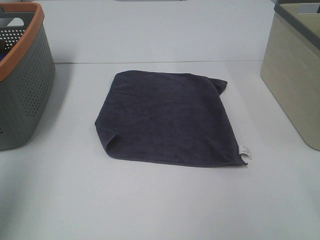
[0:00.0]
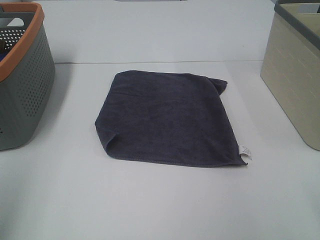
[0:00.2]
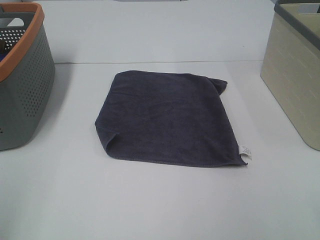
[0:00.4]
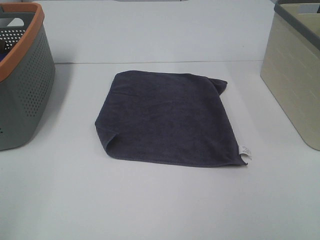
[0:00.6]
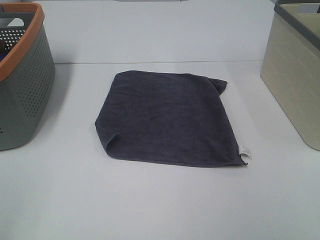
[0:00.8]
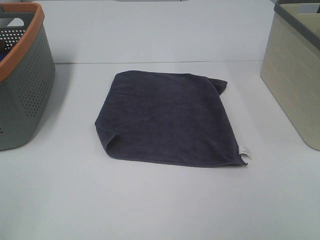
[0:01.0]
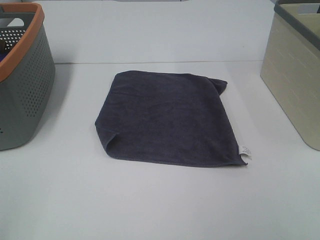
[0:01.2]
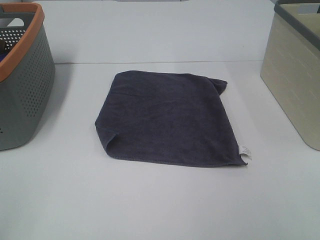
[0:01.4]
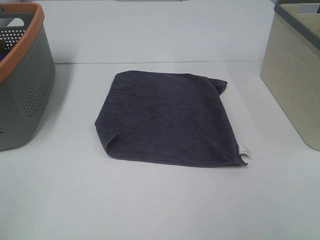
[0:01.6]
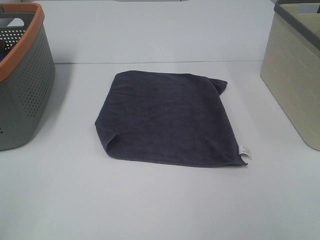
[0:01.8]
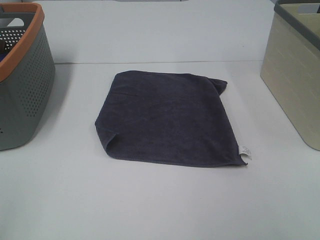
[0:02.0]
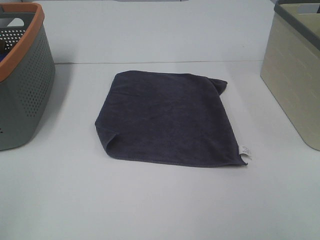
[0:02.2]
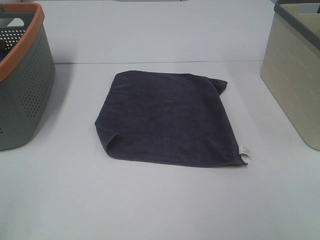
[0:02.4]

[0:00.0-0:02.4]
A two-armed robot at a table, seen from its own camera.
Task of the whole recording: Remove the towel and place it.
0:00.0 to 0:01.2: The left gripper goes some 20 cm backward and downward.
0:01.2 to 0:02.4: The two grippers keep their place.

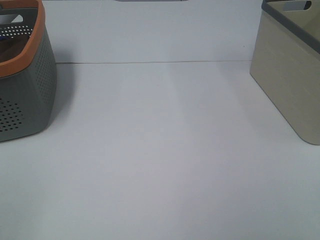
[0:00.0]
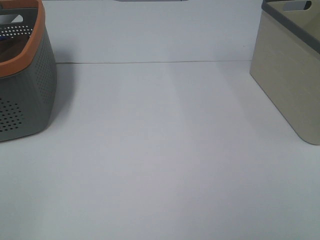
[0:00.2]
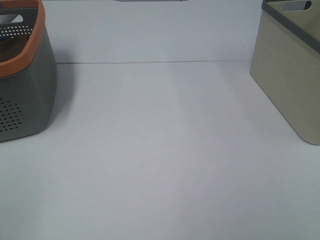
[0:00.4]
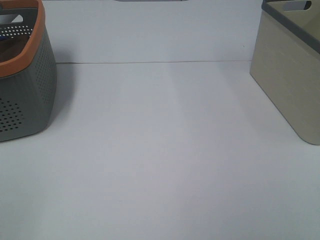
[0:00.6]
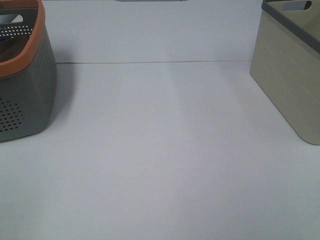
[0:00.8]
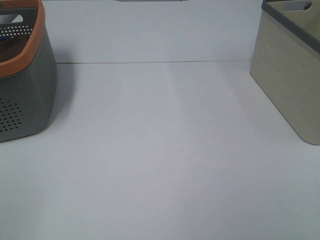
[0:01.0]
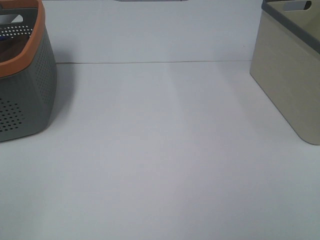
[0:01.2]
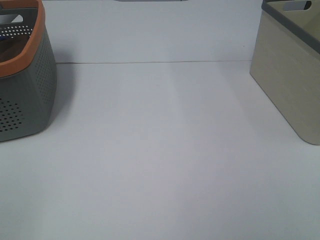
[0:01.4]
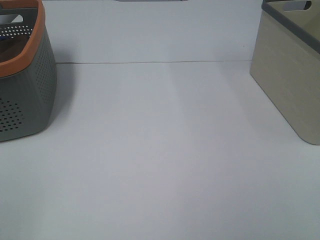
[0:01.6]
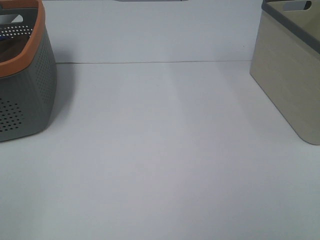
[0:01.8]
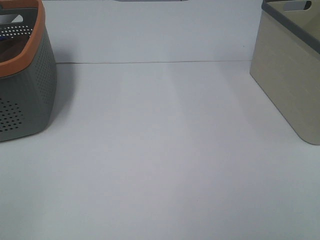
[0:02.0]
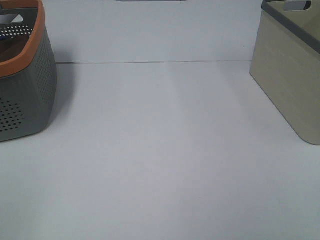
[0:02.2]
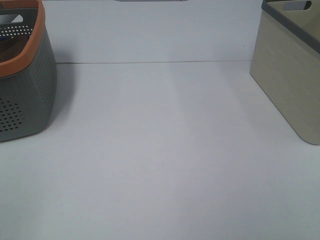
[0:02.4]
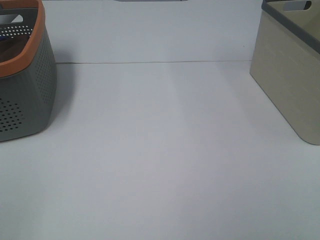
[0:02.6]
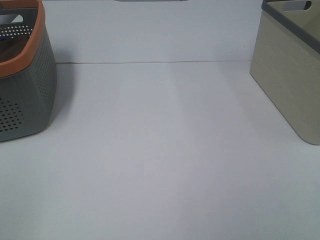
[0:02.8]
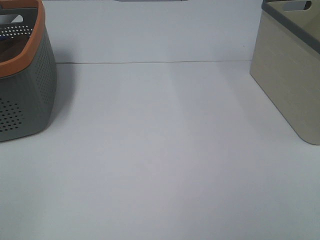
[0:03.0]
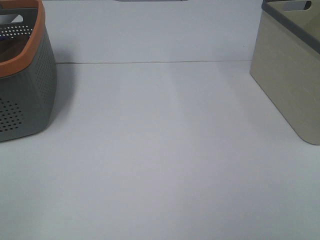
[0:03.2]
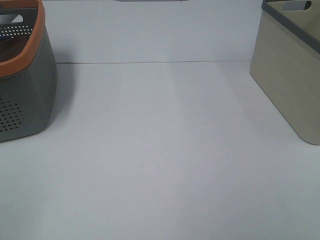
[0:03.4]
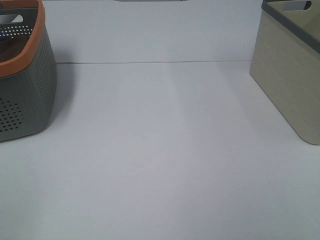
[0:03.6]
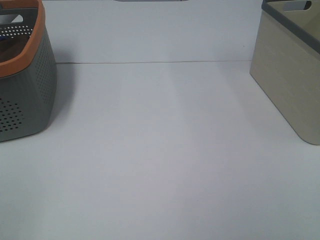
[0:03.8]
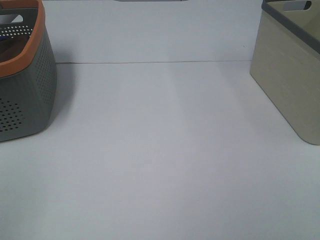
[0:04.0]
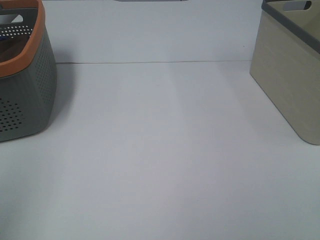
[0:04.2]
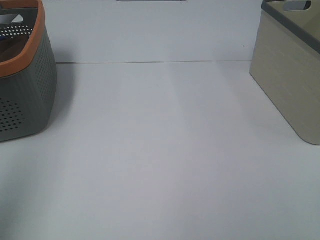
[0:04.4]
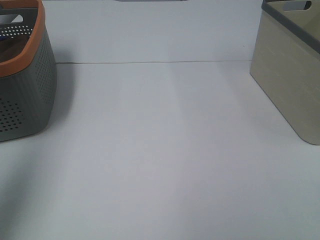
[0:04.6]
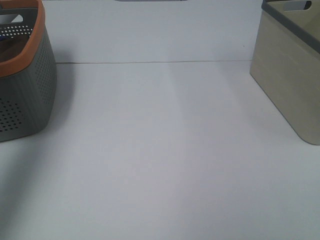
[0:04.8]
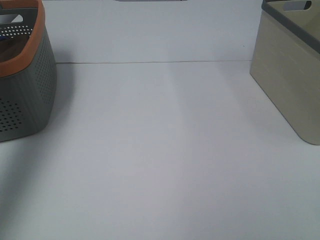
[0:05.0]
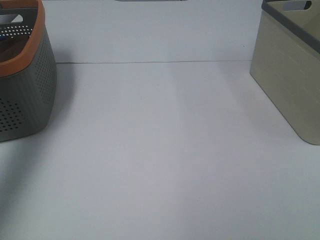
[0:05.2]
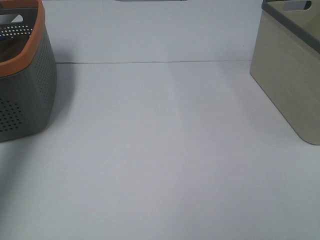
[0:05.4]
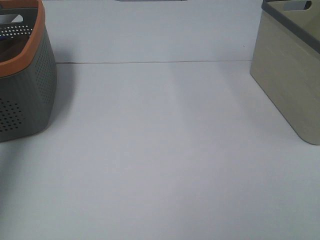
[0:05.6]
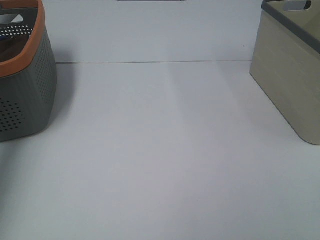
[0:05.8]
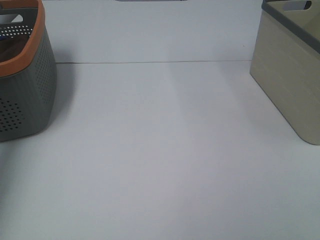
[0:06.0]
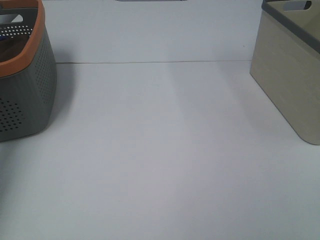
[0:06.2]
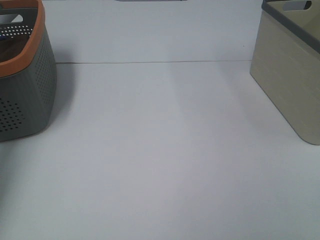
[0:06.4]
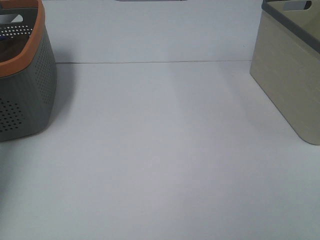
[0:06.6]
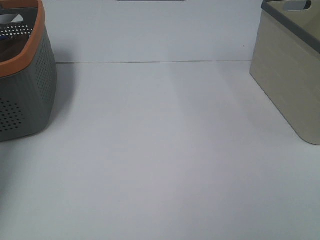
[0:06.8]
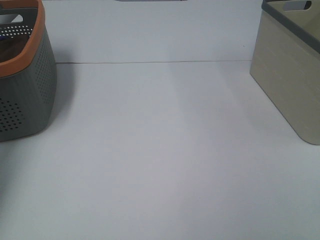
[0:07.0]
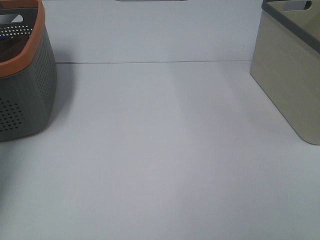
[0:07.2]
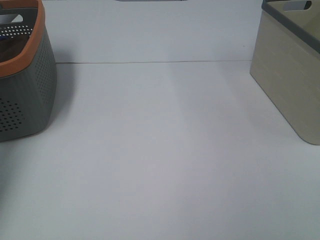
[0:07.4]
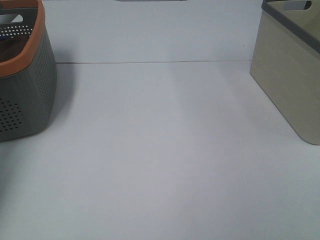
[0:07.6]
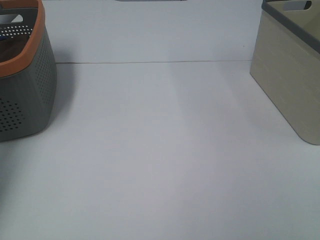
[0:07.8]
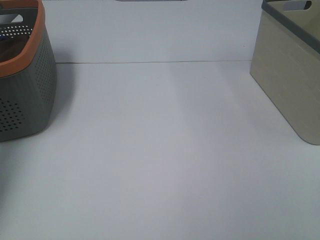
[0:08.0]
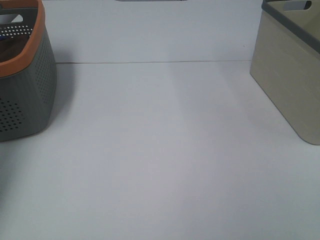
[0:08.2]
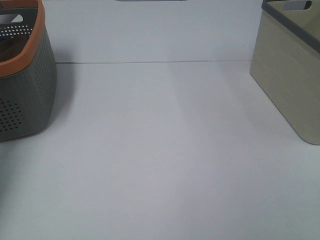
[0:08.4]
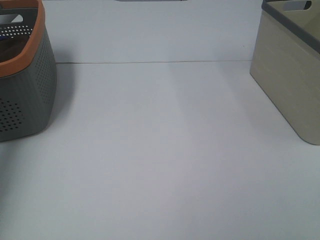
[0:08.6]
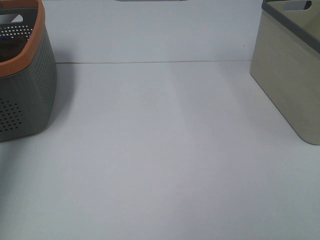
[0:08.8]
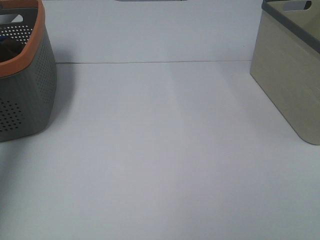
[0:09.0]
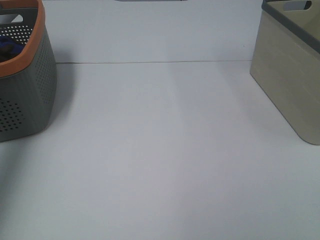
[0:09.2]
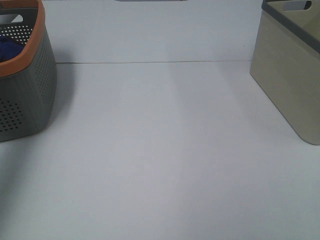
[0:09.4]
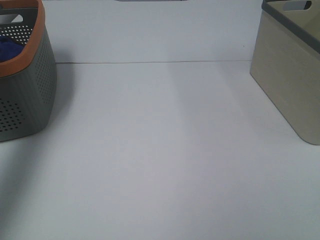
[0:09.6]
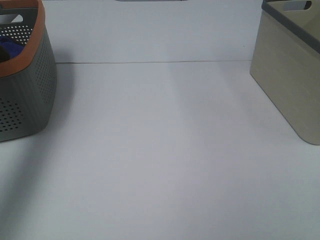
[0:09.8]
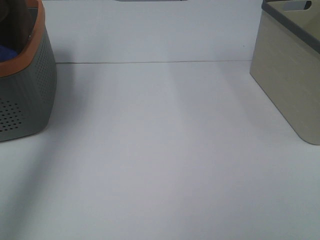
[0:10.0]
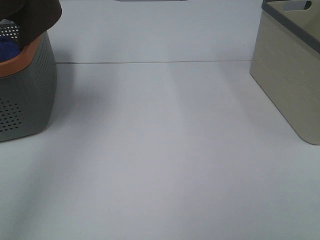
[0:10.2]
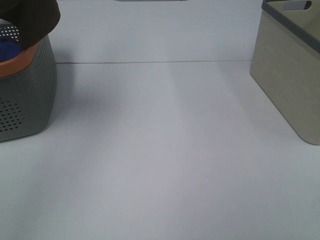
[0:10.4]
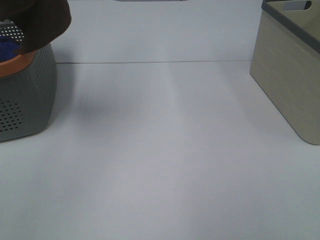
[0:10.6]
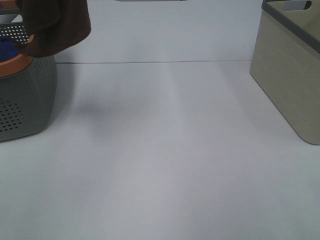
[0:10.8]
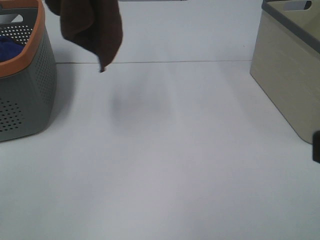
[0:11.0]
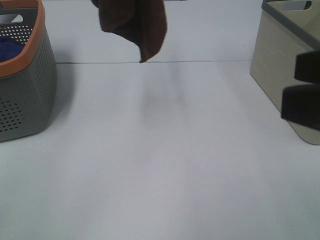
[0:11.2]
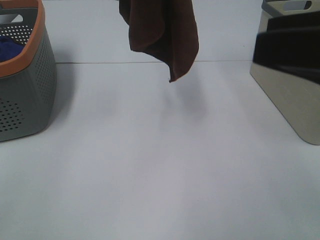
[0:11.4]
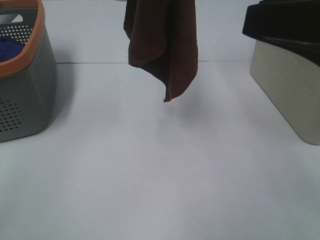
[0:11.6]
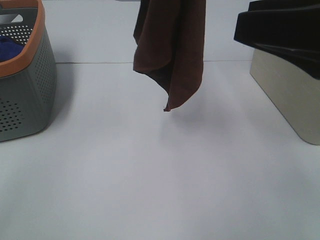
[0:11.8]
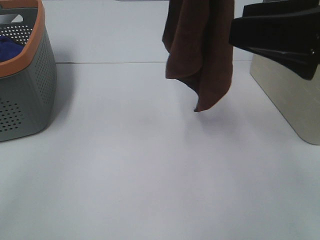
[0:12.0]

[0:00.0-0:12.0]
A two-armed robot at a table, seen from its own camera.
Task of the whole recording: Remove the towel and place it.
0:00.0 to 0:03.0: Both grippers stay about where they are.
0:03.0 to 0:04.4: The left gripper moves forward and upward, approximately 15 cm.
0:04.4 to 0:06.0: The left gripper heads forward, covering roughly 30 cm.
0:09.0 to 0:10.4: The left gripper shifts some 25 cm to the right, upward and backward.
0:10.4 to 0:12.0: The right gripper shifts about 20 cm forward. The left gripper travels to the right and downward by approximately 20 cm.

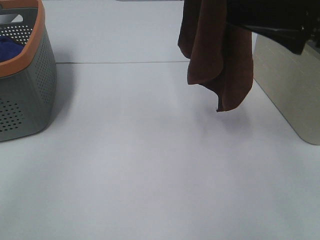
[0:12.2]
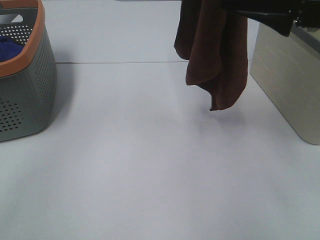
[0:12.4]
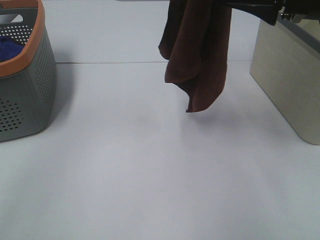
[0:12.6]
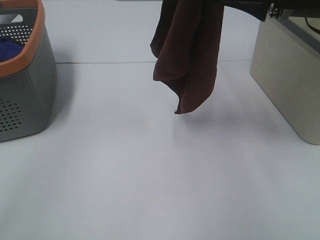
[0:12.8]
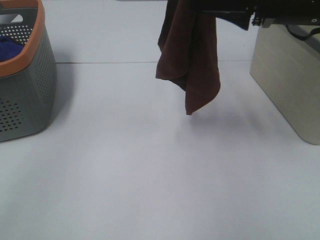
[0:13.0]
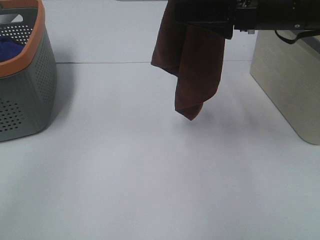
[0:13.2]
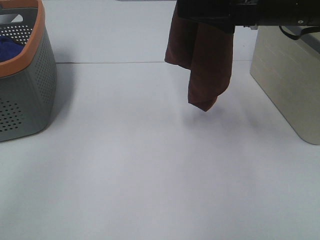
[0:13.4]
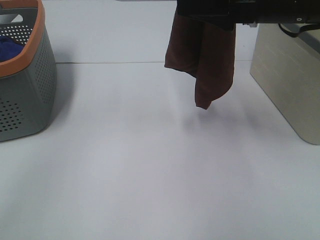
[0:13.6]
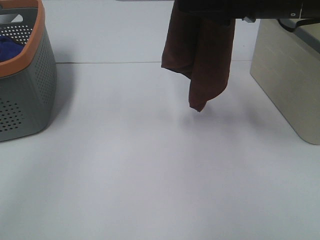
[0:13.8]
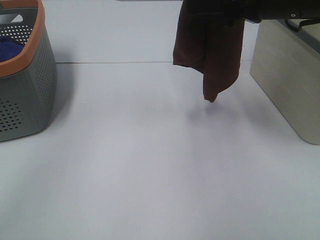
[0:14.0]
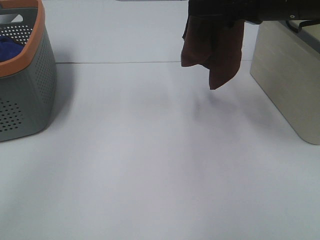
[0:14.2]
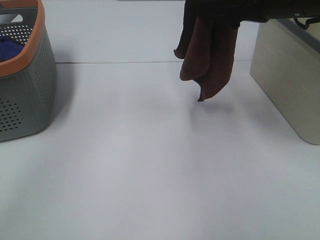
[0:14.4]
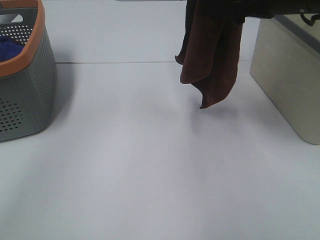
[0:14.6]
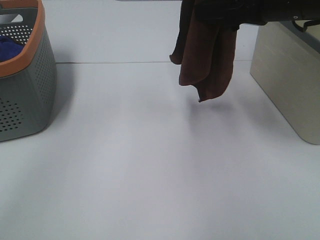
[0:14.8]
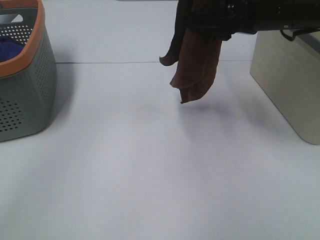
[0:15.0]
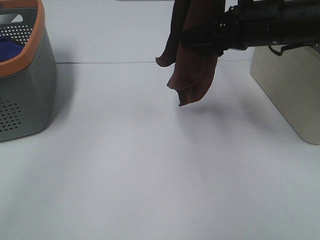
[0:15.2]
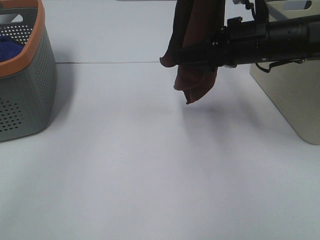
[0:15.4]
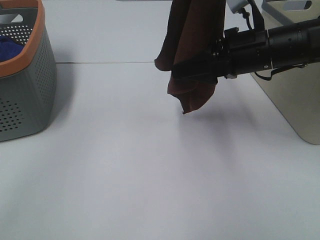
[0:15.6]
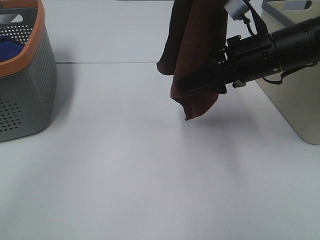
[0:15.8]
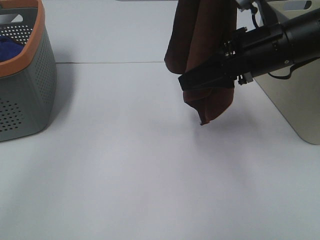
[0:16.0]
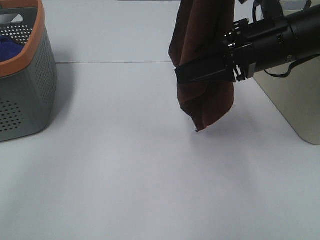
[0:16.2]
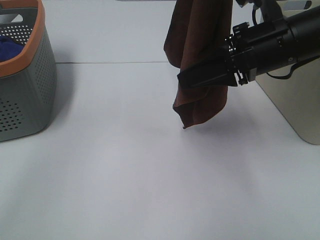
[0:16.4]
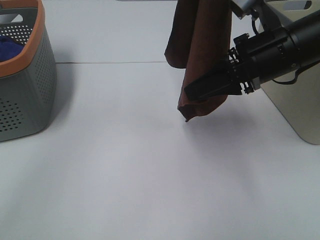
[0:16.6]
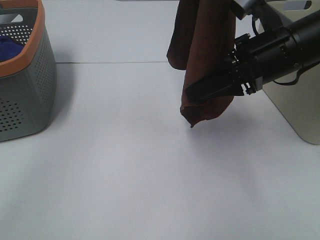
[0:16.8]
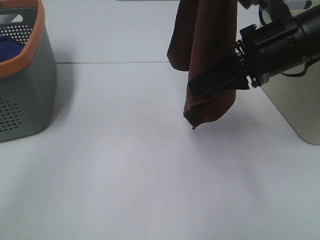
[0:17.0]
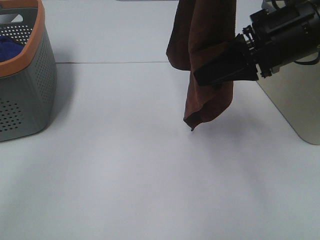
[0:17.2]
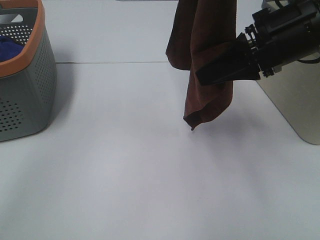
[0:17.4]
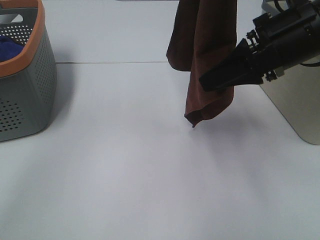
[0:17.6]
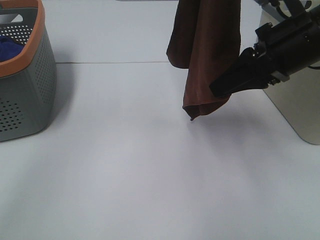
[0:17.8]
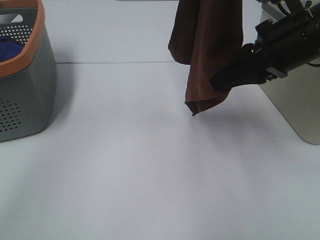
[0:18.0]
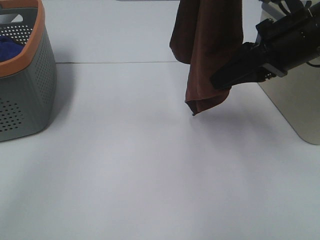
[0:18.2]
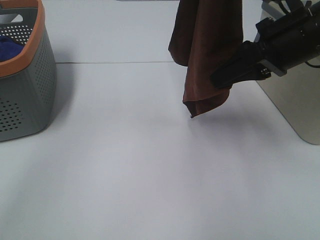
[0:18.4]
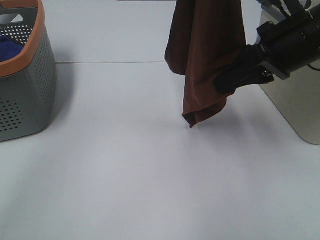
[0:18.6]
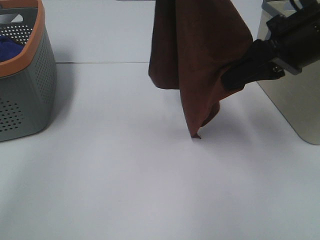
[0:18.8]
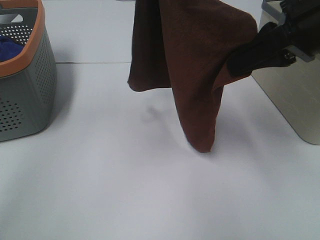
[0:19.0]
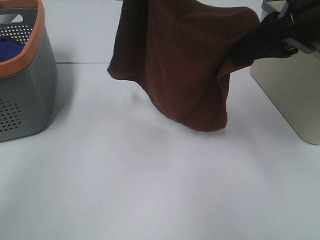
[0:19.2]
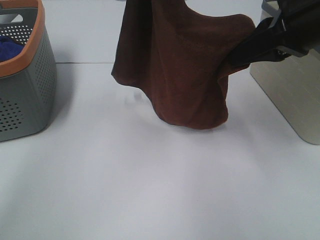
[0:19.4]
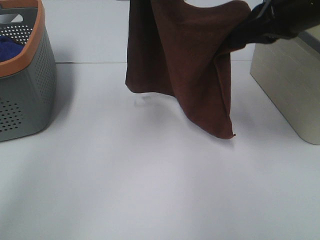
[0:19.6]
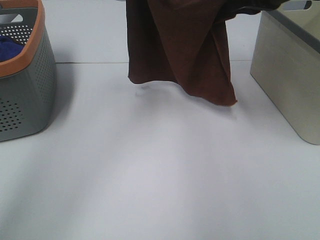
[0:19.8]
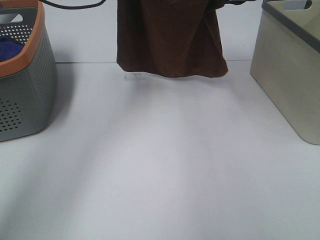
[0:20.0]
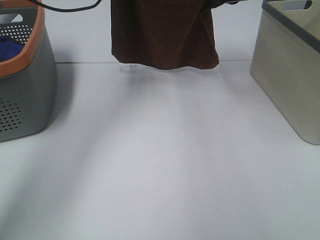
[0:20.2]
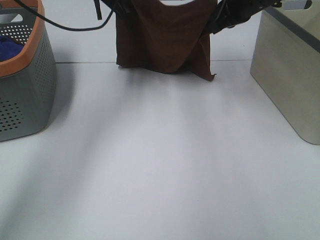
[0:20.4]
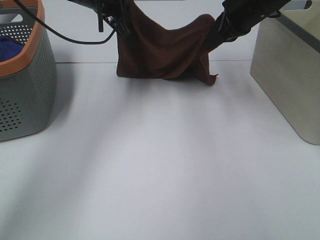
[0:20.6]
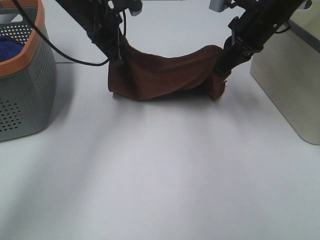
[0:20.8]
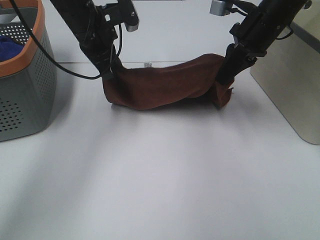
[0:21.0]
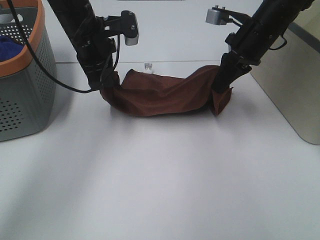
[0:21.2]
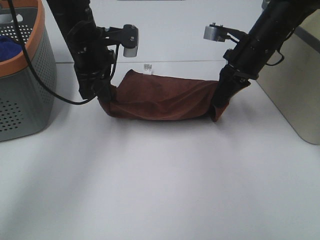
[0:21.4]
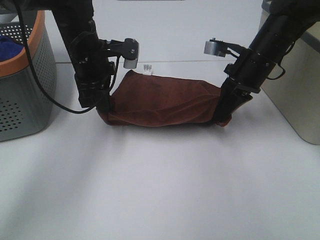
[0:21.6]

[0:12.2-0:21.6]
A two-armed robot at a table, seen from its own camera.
Task of the whole recording: Remove the towel and place it.
Step, 0:12.2 to 0:16.0: Right hand: grab a corner of the brown towel and straighten it.
Step, 0:16.2 to 0:18.0: Right hand: spread the brown towel flat on the table.
0:12.2 to 0:13.8: The right gripper goes approximately 10 cm forward.
0:13.8 to 0:15.4: The right gripper travels downward by roughly 10 cm.
0:15.4 to 0:17.0: The right gripper shifts approximately 5 cm backward, and closes.
0:17.0 to 0:18.4: The grippers stay close to where they were, moving slightly.
0:18.4 to 0:20.0: The left gripper shifts roughly 20 cm forward, downward and to the left. The right gripper shifts approximately 15 cm forward.
0:20.0 to 0:21.6: Both grippers move downward, about 15 cm.
